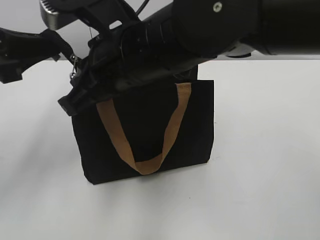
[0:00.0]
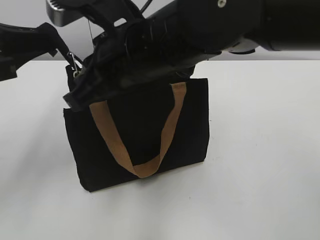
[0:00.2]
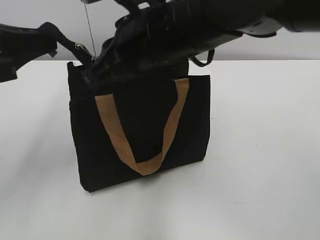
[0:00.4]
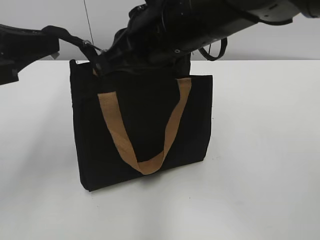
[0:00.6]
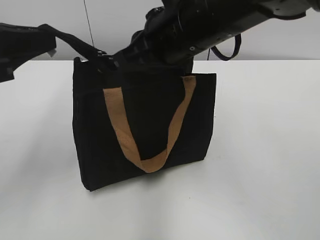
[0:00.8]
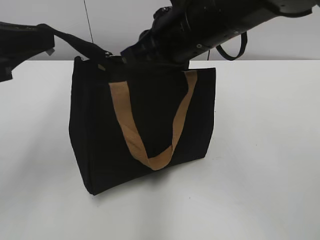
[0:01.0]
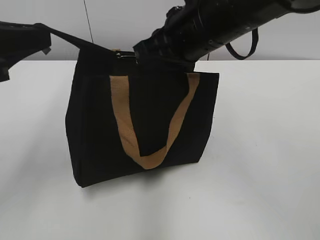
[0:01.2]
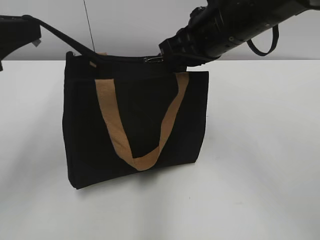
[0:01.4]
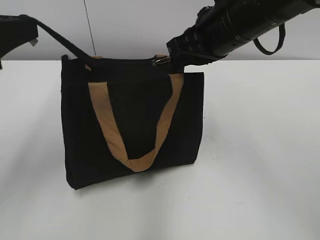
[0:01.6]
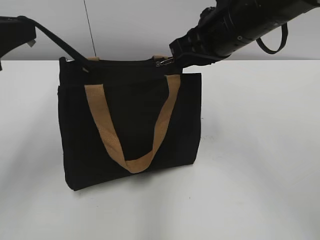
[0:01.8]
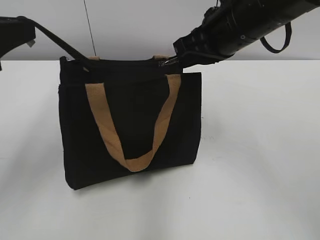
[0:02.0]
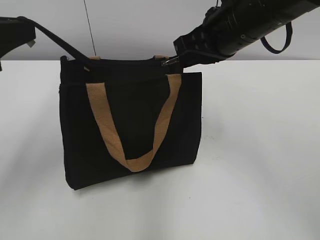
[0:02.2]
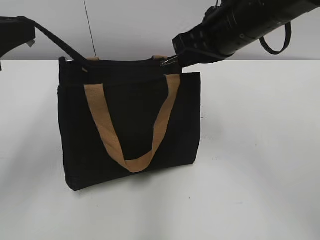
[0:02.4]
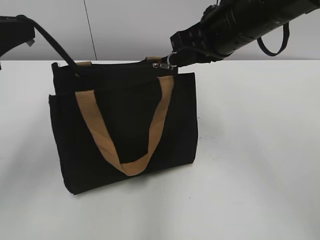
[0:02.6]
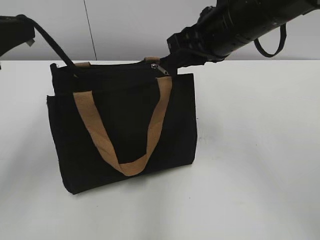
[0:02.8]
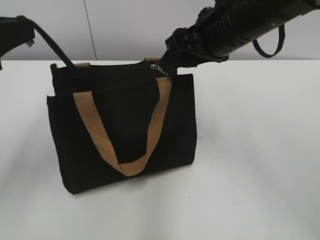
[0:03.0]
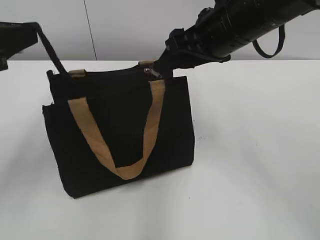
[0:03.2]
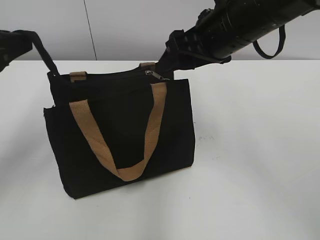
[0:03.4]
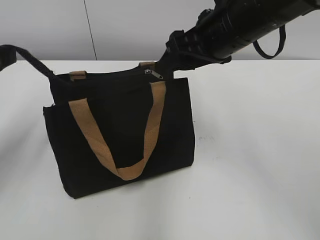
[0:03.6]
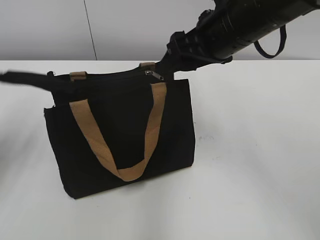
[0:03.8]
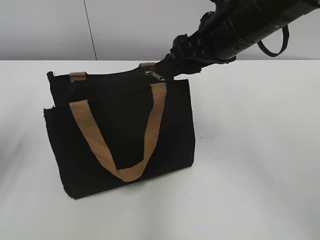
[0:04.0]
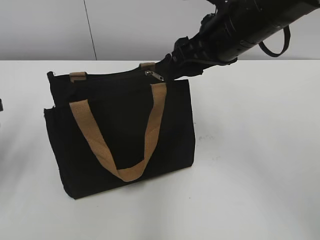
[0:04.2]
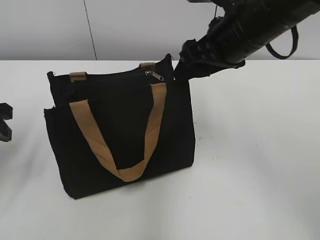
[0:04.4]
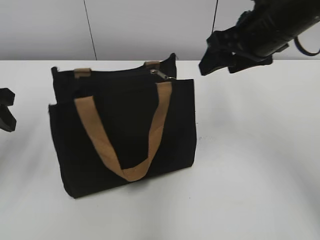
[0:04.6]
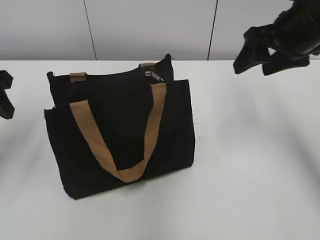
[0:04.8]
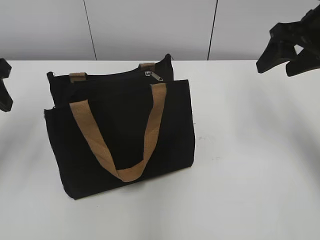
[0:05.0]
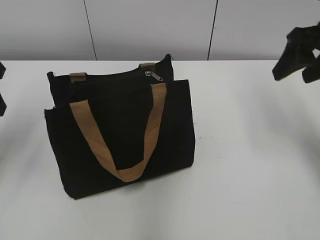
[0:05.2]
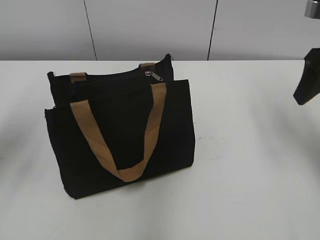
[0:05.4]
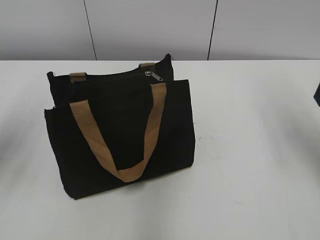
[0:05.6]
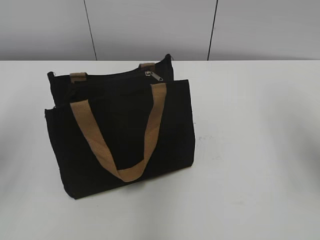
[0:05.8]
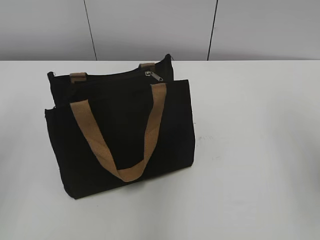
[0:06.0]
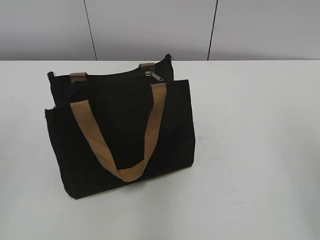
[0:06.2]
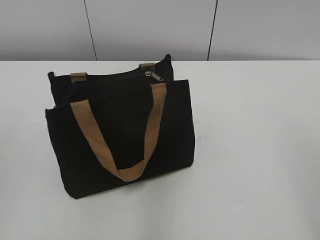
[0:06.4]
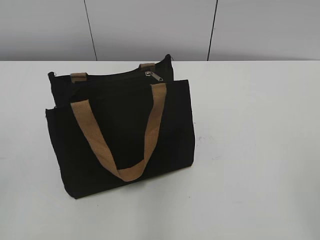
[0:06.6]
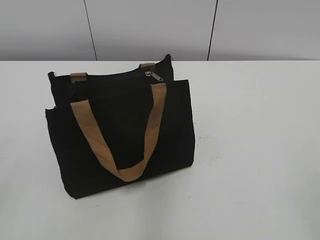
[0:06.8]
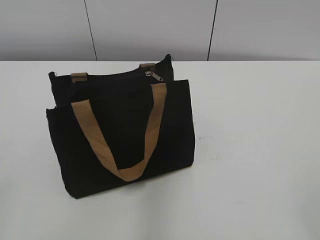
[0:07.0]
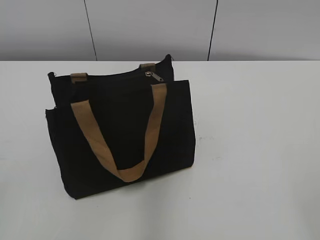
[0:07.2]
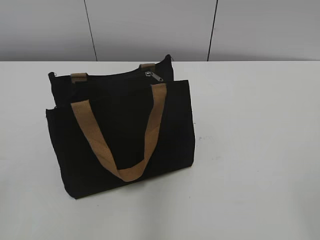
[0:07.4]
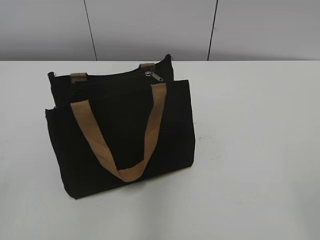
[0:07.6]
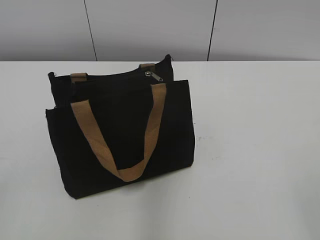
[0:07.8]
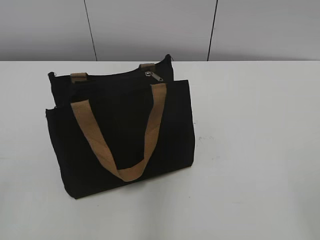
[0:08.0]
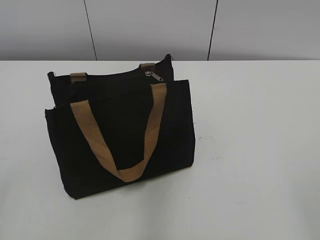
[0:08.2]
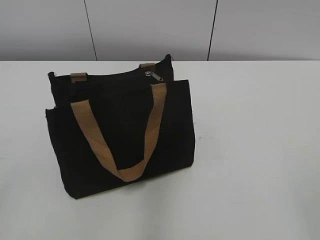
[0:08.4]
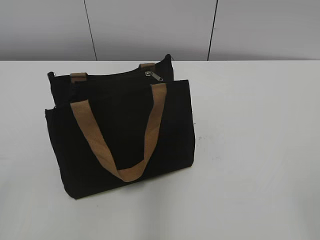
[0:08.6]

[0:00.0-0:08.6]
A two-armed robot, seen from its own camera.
Step, 0:00.0 to 0:02.8: Zip up the bag with your right hand.
Step, 0:03.0 to 0:03.8: Grab the zipper with your left hand.
0:00.0 to 0:01.4: The right gripper shifts some 15 cm to the right and forward.
0:01.4 to 0:02.8: The right gripper opens.
0:02.8 to 0:04.4: The right gripper opens, while the left gripper is displaced downward by some 10 cm, and opens up.
0:04.4 to 0:05.8: The right gripper is displaced to the right and backward by about 20 cm, while the left gripper goes about 10 cm upward.
0:05.8 to 0:07.2: Both grippers travel together backward, approximately 25 cm.
0:07.2 to 0:08.6: Both grippers stay put.

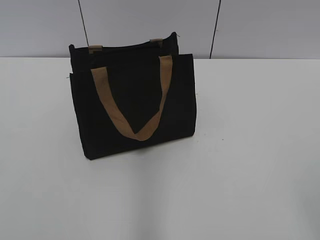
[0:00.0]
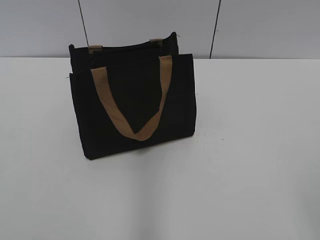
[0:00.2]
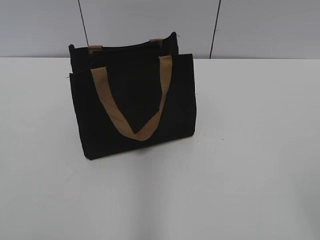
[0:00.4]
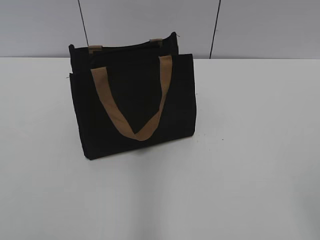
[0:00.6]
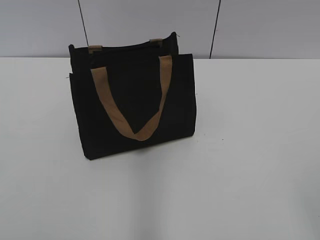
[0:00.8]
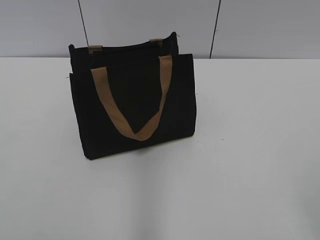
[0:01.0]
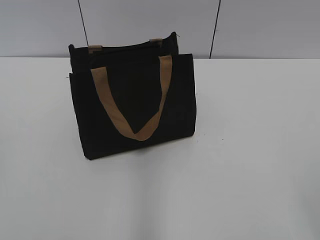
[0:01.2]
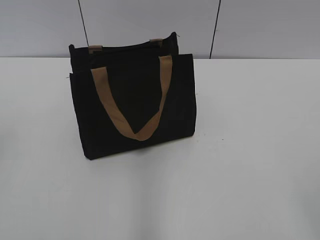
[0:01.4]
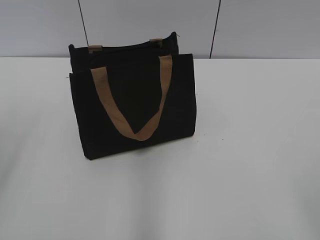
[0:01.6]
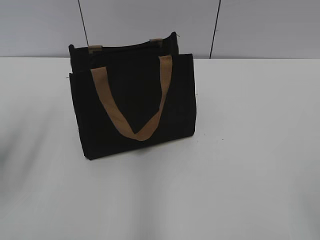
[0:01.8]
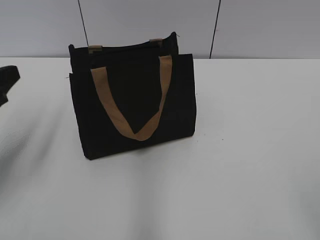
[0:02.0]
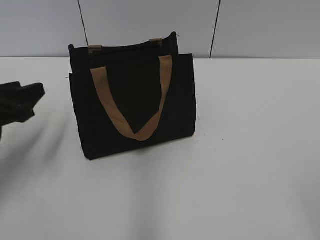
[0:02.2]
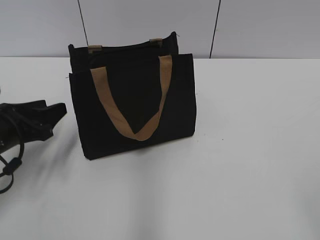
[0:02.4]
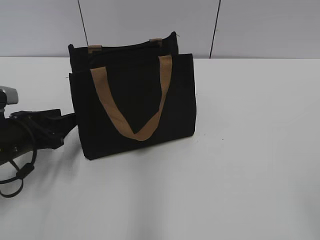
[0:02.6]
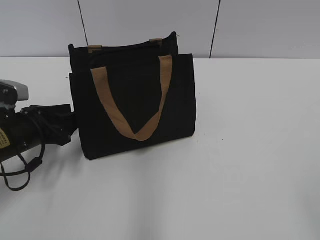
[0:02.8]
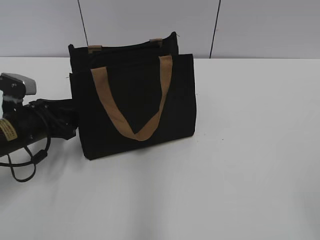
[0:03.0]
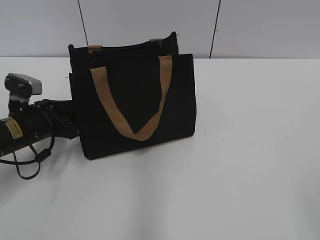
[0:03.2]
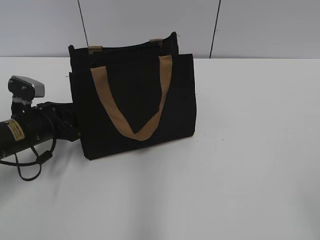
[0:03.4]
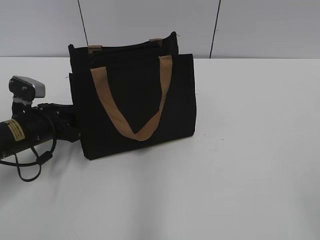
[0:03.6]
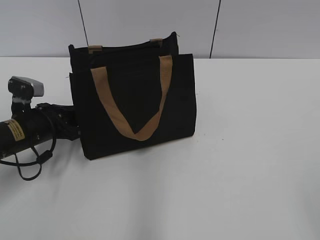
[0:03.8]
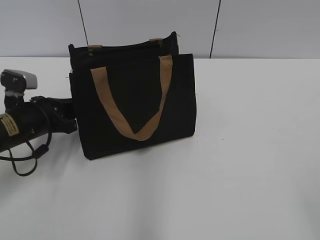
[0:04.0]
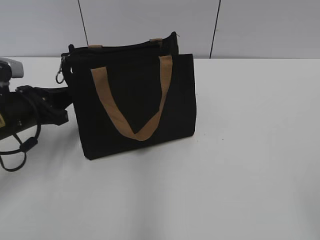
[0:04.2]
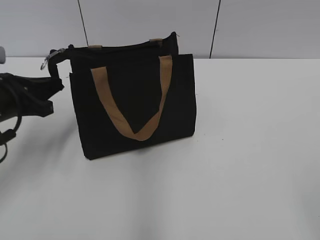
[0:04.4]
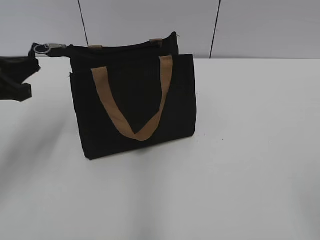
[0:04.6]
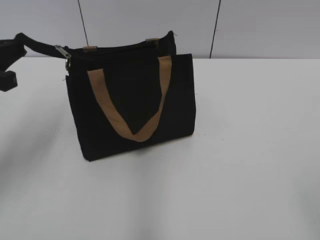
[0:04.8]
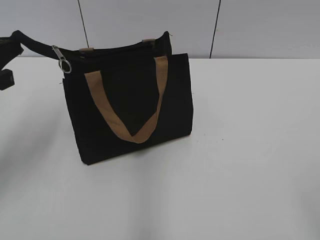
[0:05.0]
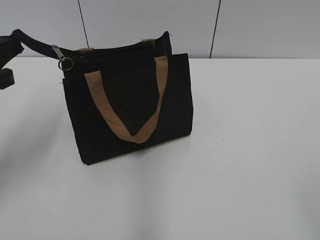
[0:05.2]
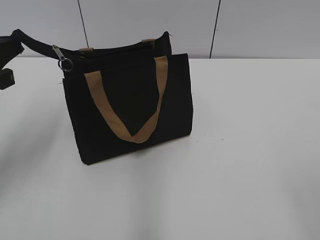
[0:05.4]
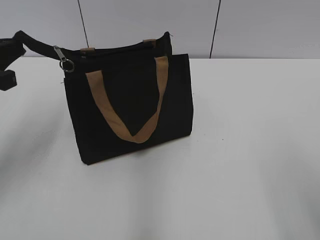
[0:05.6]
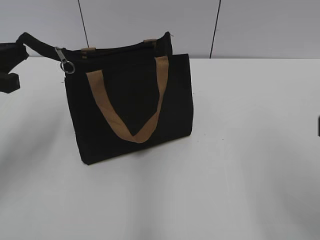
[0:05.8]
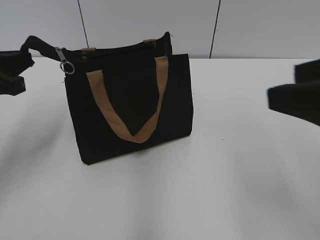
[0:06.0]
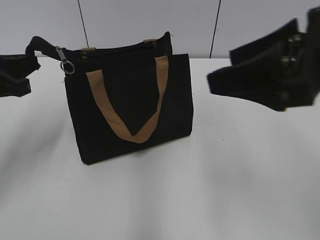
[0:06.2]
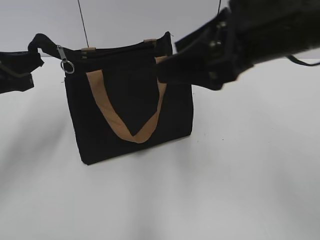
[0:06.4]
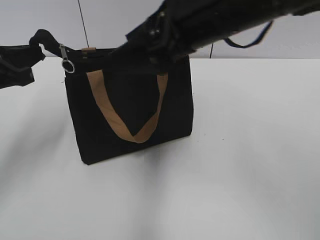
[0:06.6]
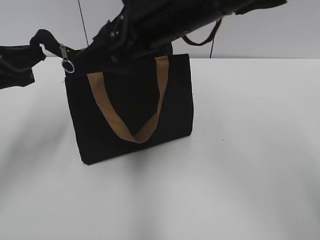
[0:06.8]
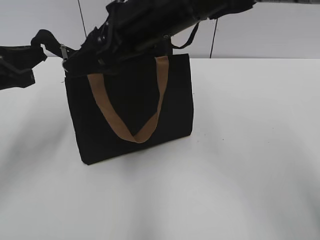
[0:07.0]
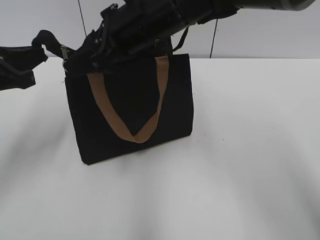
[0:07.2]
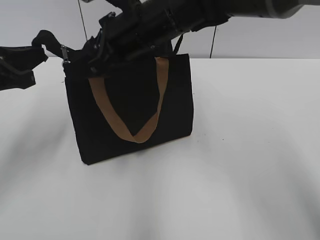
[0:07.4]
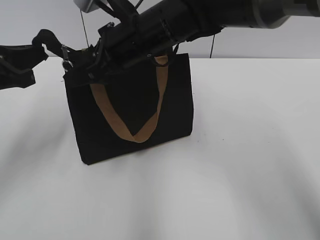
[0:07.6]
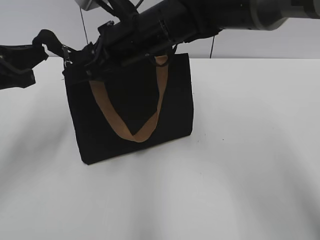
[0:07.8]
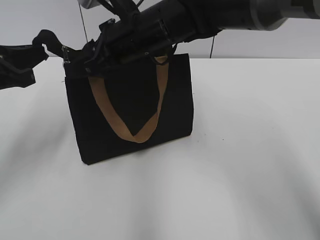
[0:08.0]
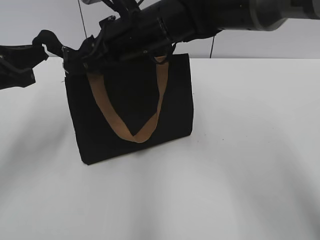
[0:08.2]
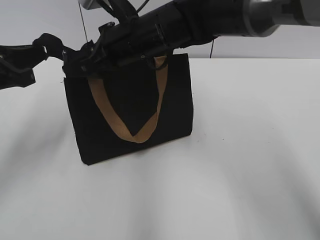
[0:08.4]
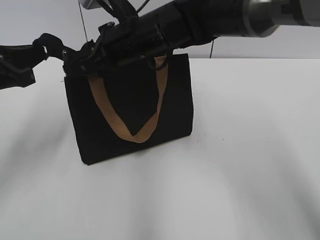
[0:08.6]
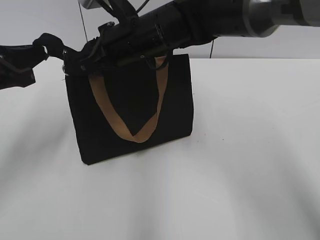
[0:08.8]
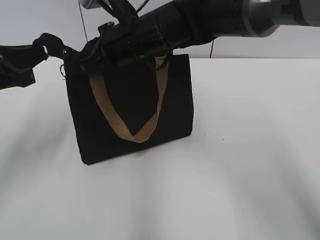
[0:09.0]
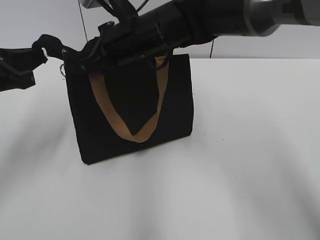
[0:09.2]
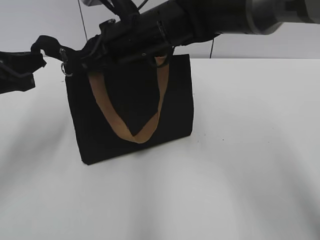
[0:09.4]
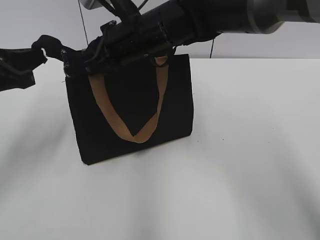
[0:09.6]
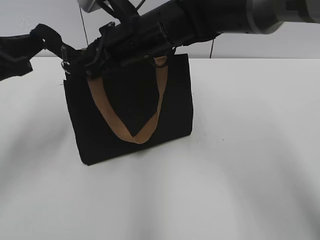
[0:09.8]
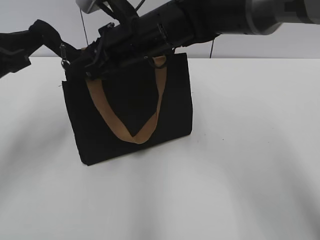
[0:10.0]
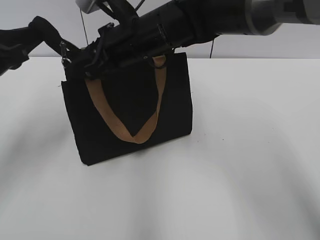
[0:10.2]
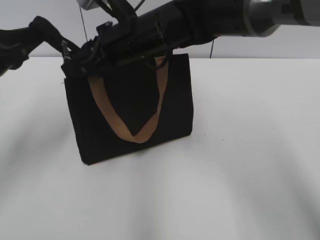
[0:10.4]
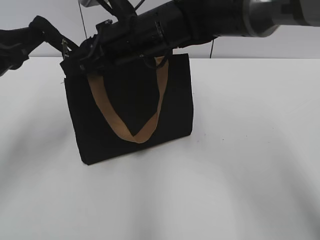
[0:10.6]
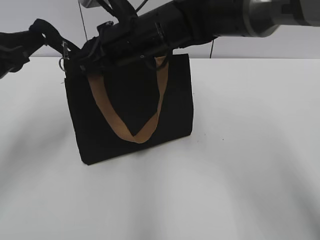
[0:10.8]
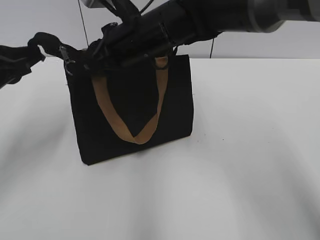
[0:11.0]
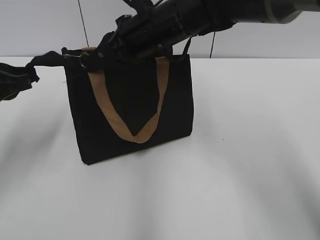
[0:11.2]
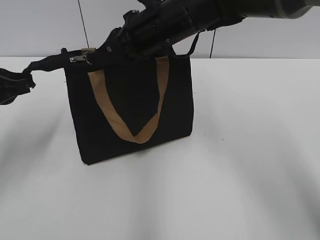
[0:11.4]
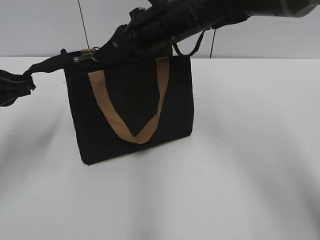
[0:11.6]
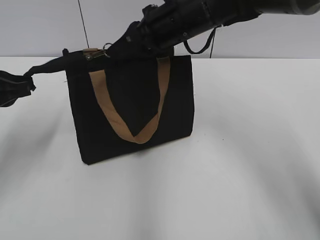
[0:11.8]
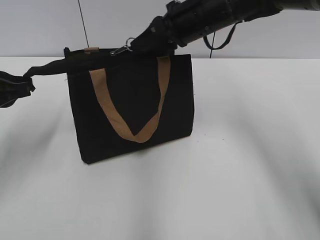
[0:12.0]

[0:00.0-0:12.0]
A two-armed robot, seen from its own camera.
0:01.6 to 0:03.0: The left gripper moves downward and forward, approximately 30 cm.
0:03.0 to 0:04.4: The left gripper shifts approximately 5 cm upward, and closes up.
0:04.4 to 0:06.0: The left gripper goes roughly 10 cm upward. Meanwhile the right gripper heads forward and to the left, covering approximately 15 cm.
0:06.0 to 0:07.6: The right gripper travels to the left and forward by some 35 cm, and closes its fingers.
0:07.6 to 0:09.0: The right gripper closes up.
0:09.0 to 0:10.4: The grippers make only small movements.
0:10.4 to 0:12.0: The right gripper goes some 10 cm to the right.

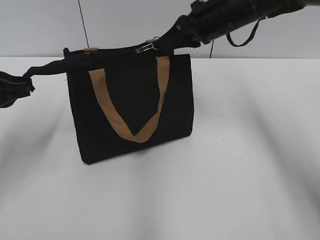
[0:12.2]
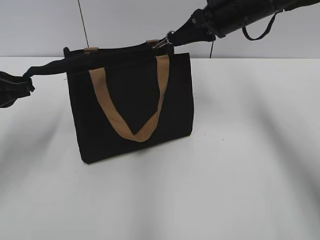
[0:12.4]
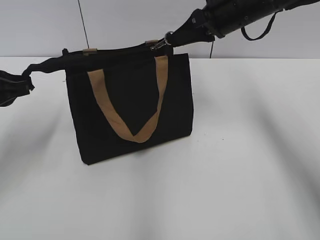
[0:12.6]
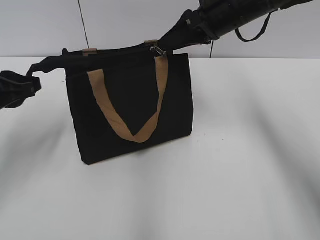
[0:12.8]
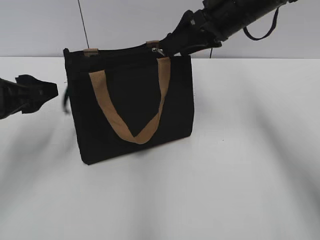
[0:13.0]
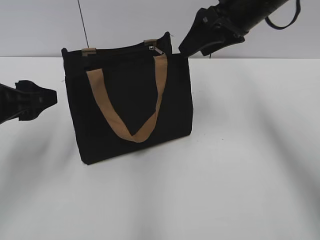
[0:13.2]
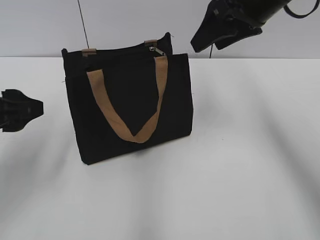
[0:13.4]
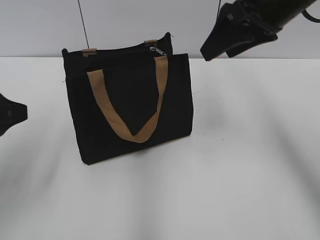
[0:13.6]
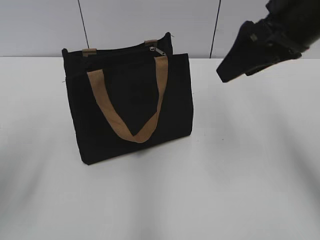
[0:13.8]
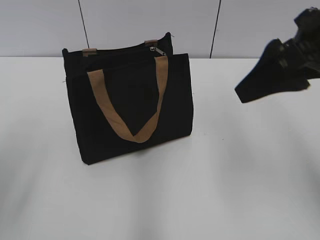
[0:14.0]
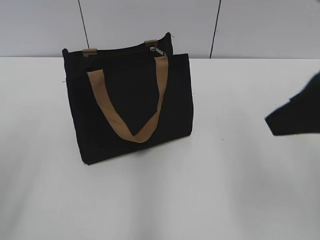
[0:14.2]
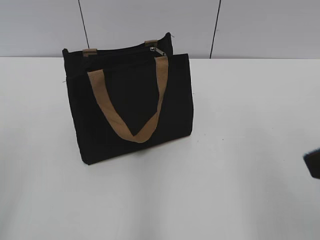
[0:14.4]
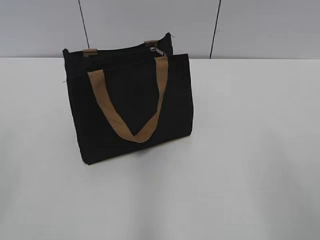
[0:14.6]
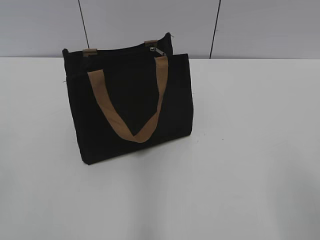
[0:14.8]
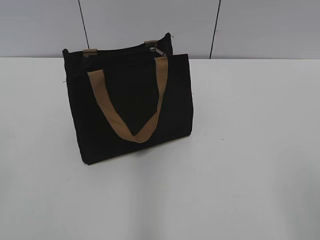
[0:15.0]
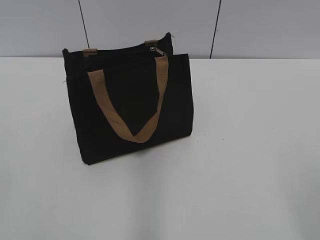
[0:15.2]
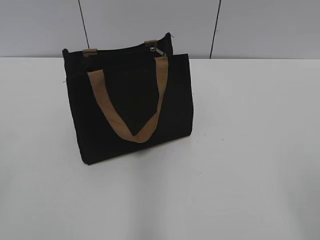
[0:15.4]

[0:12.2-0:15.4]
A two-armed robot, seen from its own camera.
Step, 0:13.0 to 0:13.2: Grab the zipper with your left hand.
0:12.2 to 0:13.8: The right gripper goes approximately 15 cm backward, upward and to the right, and opens up. The left gripper moves backward, roughly 10 cm, and opens its fingers.
0:13.8 to 0:15.4: The right gripper is displaced backward by roughly 30 cm.
